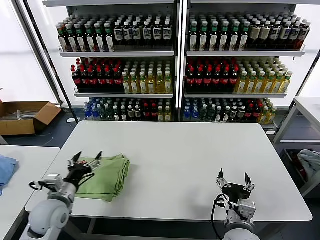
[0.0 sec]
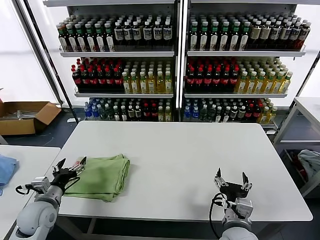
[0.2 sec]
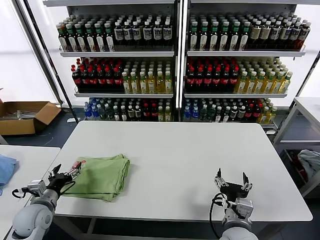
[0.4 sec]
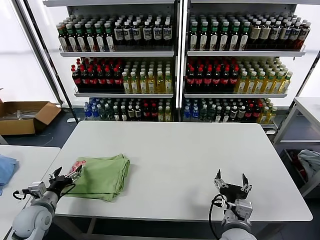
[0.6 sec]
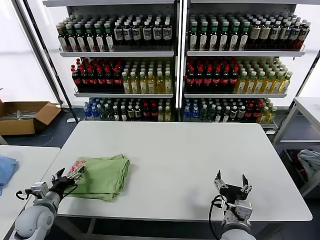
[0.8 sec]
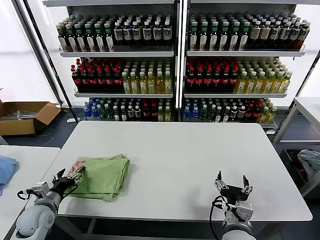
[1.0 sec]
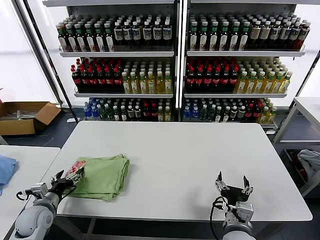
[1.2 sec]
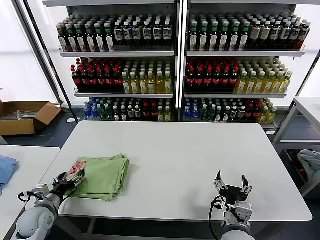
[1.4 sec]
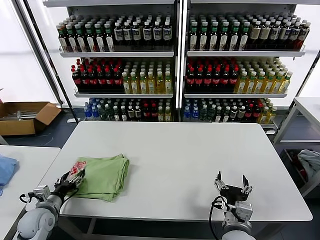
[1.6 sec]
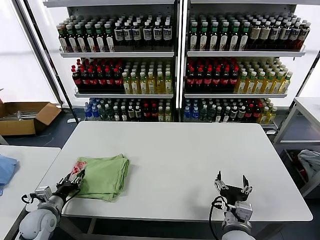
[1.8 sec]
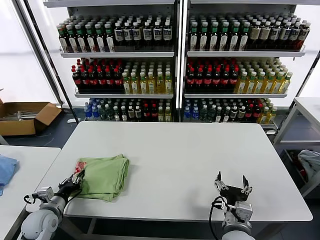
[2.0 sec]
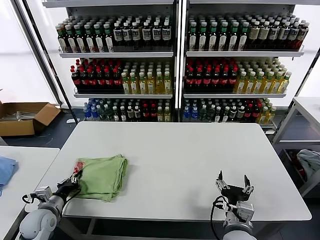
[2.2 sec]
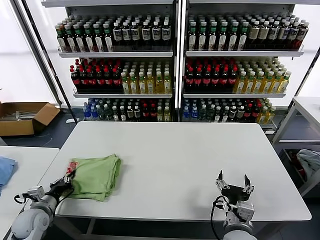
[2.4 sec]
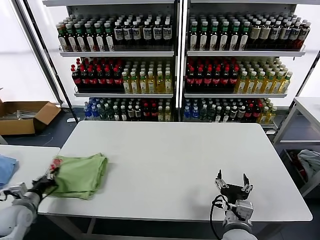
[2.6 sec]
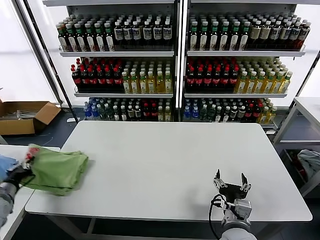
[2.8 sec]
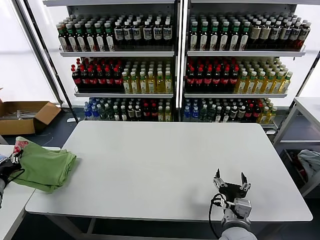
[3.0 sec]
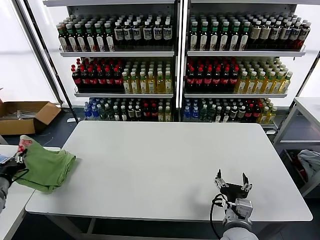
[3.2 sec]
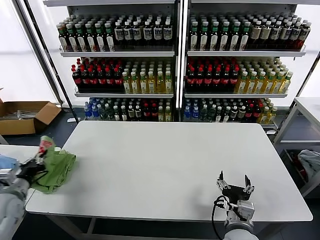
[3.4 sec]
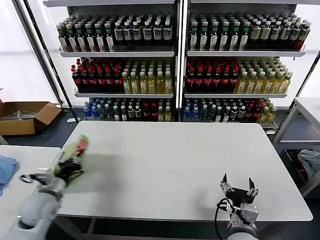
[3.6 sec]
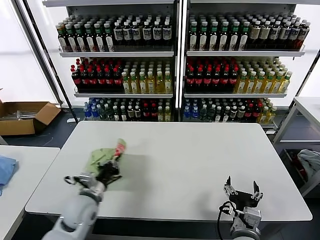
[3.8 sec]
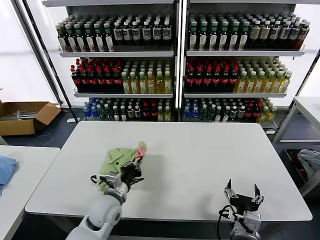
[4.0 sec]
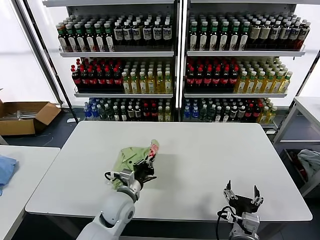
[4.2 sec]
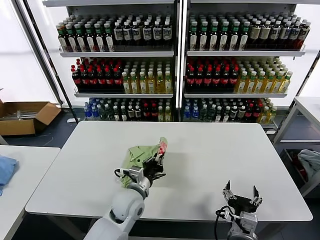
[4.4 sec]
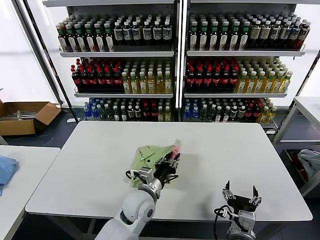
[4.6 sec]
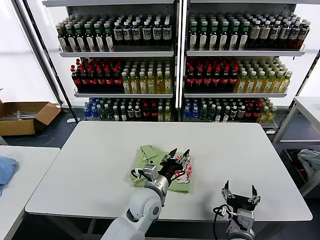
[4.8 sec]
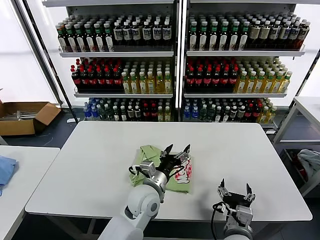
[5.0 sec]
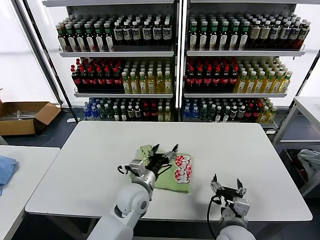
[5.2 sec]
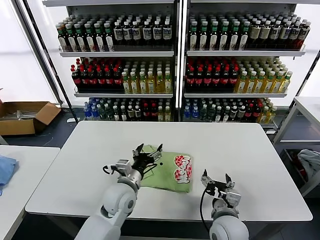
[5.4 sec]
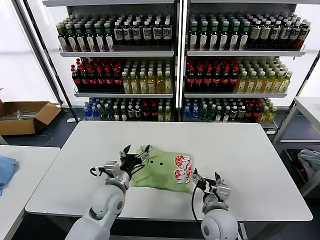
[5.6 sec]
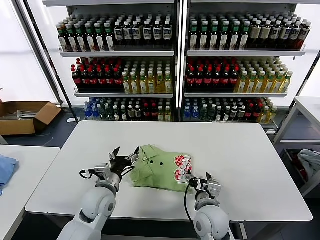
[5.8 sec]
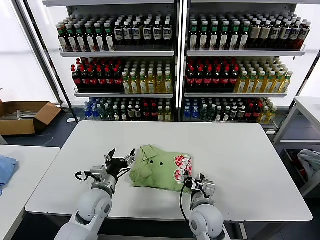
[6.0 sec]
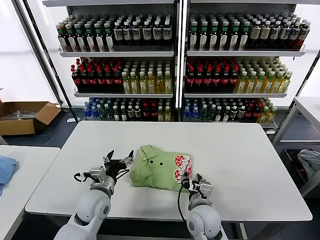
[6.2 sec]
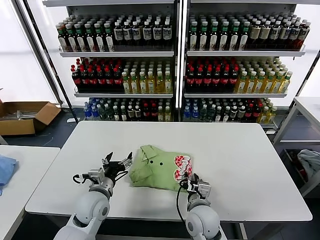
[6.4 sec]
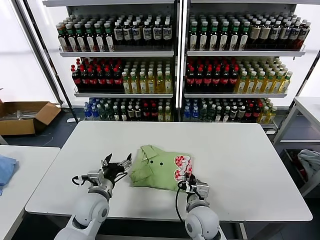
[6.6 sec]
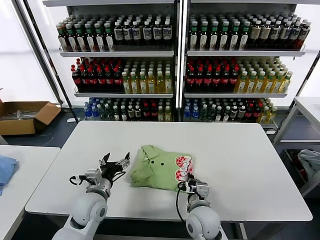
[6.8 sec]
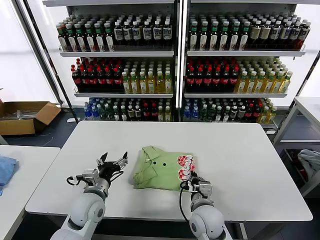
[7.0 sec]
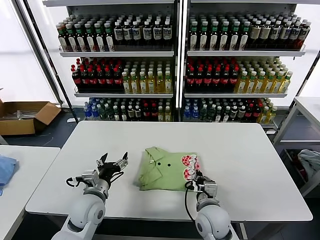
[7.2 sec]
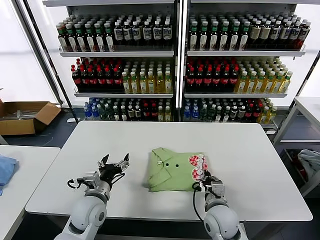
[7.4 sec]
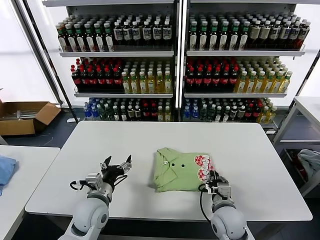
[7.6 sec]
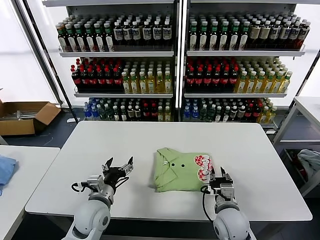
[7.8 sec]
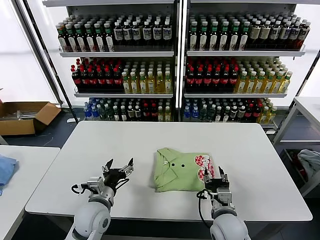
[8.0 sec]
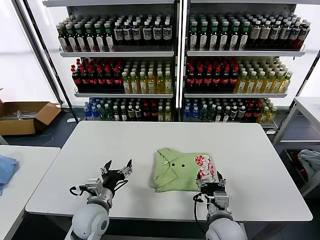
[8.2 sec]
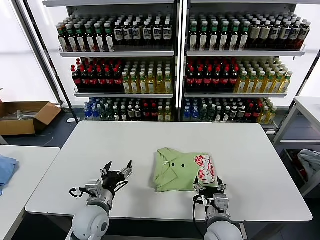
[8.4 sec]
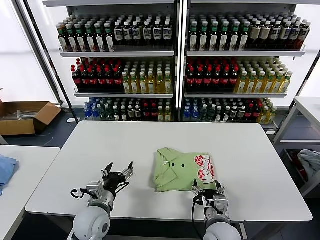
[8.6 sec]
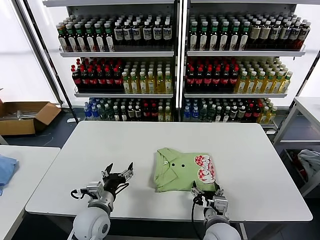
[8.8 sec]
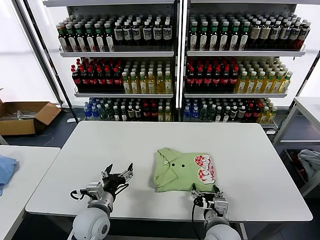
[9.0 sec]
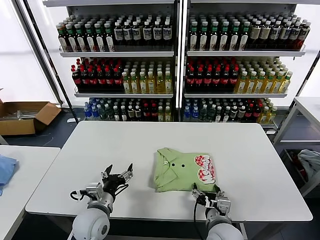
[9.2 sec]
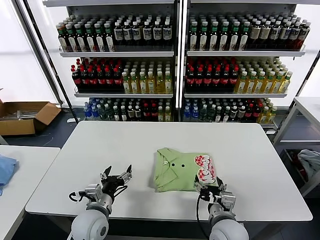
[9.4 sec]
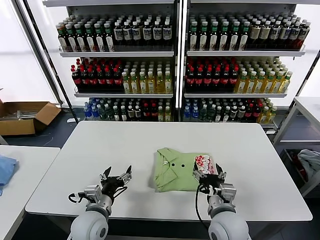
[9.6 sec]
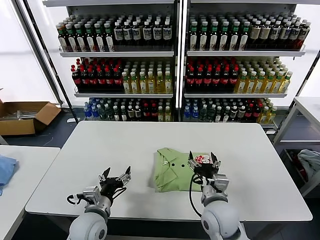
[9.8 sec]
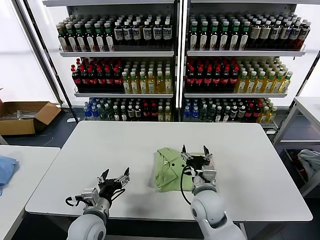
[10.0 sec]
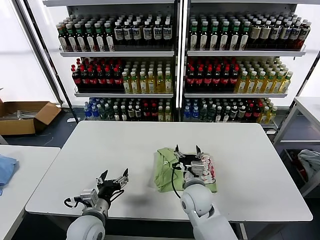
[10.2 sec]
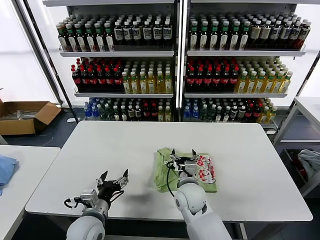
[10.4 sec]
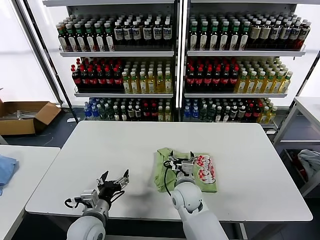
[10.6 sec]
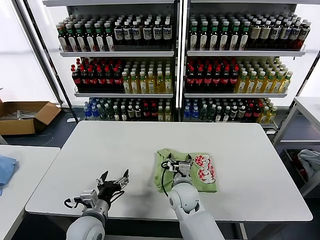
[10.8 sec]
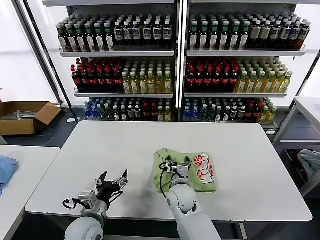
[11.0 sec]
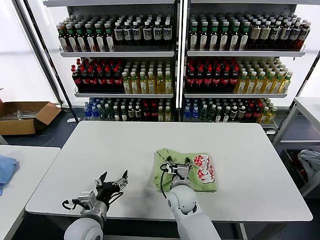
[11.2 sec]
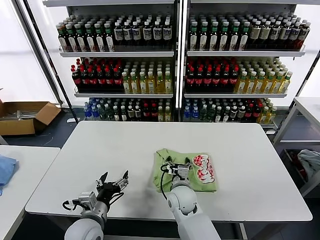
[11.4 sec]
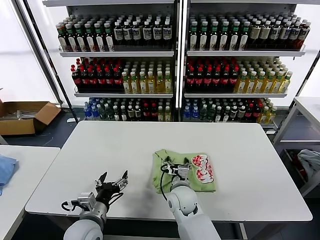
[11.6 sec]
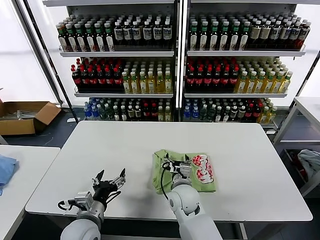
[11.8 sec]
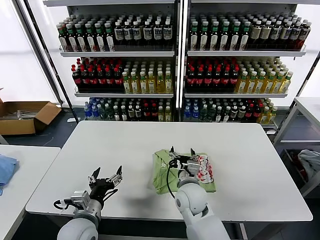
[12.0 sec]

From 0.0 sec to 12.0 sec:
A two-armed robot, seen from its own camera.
Task of the whole recording: fold and organize the clothes.
Step, from 0.0 sec to 4.6 sec: Flip the folded clothes over with left gripper.
From 0.0 sec to 1.6 sec: The left gripper goes about 15 cm to the left and downward.
From 1.6 sec to 3.0 sec: The left gripper moves to the left and upward, about 15 cm, and closes.
From 3.0 sec to 4.4 sec: The left gripper moves to the right, approximately 40 cm.
From 4.4 sec to 6.0 sec: The left gripper heads to the left, covering some 10 cm, and opens, while the right gripper goes roughly 15 cm forward and to the left.
From 6.0 sec to 7.6 sec: The right gripper travels to the right by approximately 5 cm, and closes its fingers.
From 7.6 sec to 9.0 sec: The right gripper goes about 5 cm backward, and opens its fingers.
From 9.0 sec to 10.4 sec: The right gripper shifts roughly 15 cm forward and to the left.
From 10.4 sec to 12.0 sec: The grippers stay close to where they were, moving slightly.

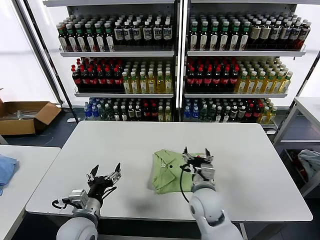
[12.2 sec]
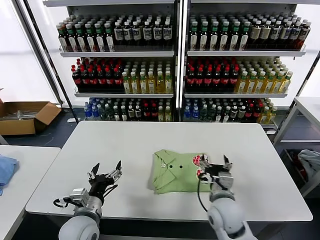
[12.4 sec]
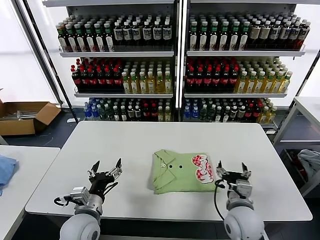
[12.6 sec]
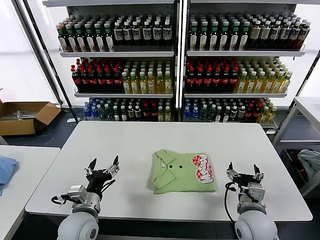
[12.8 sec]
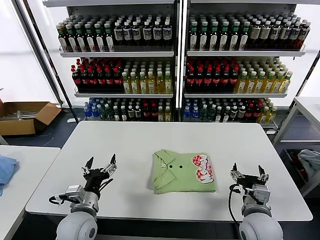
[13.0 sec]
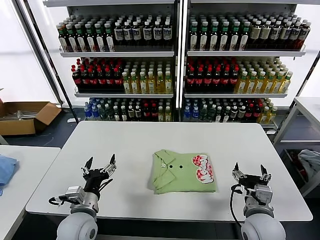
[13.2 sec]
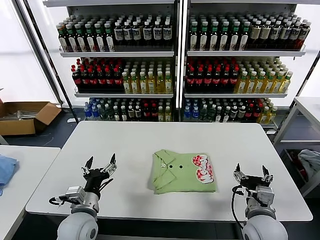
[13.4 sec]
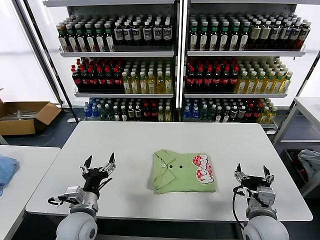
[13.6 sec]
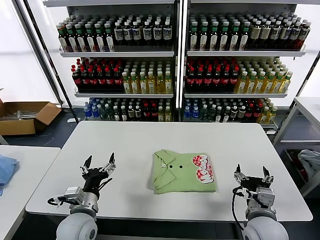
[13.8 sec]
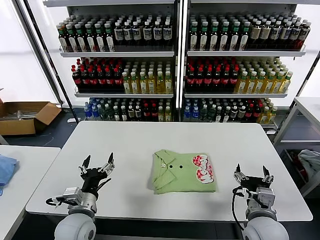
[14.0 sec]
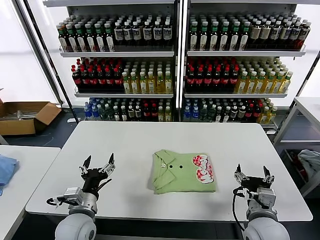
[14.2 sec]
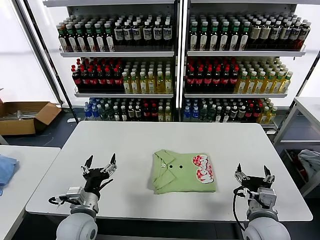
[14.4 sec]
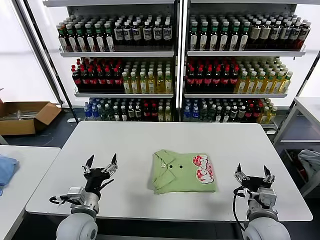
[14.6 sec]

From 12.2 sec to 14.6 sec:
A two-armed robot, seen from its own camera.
Task of the whole recording: fold and organize the clothes.
From 12.2 sec to 13.4 sec: The right gripper travels to the right and backward by roughly 15 cm.
From 13.4 sec to 14.6 sec: Both grippers stay about where they are.
